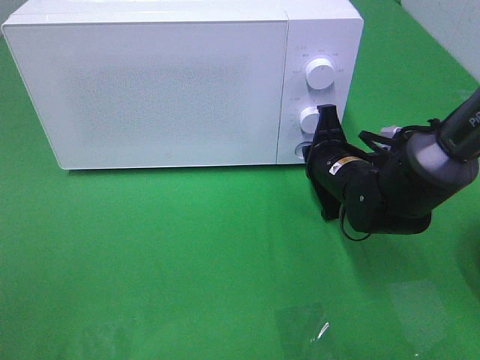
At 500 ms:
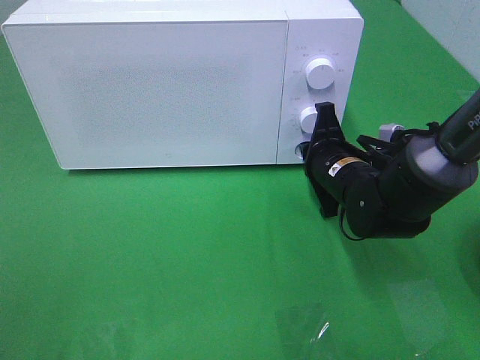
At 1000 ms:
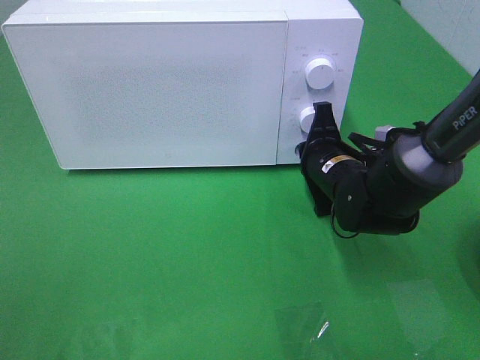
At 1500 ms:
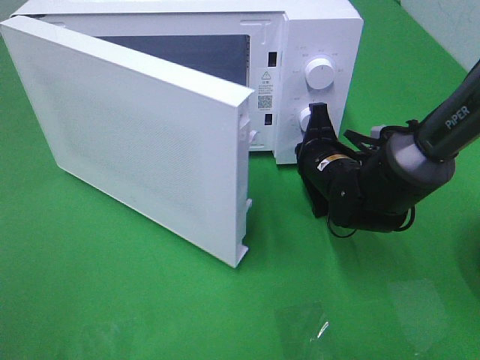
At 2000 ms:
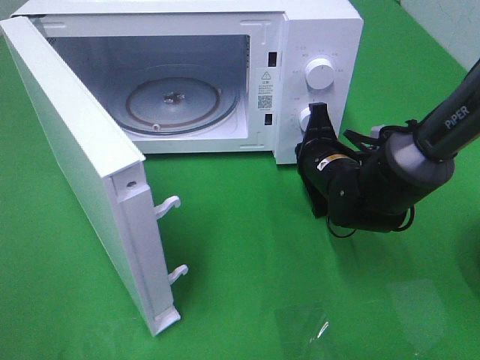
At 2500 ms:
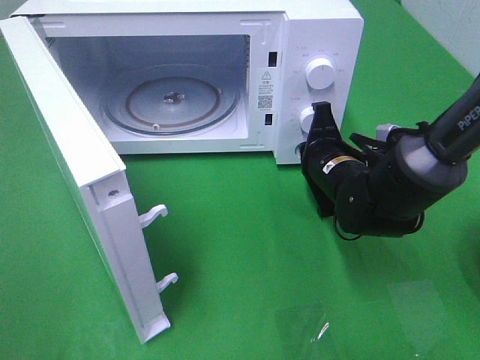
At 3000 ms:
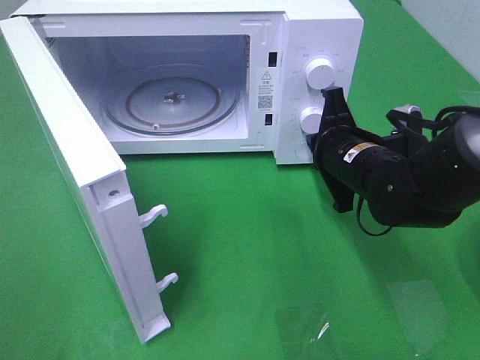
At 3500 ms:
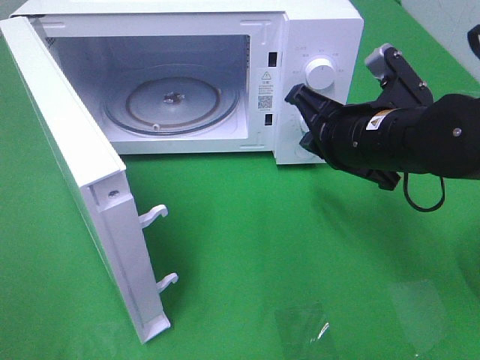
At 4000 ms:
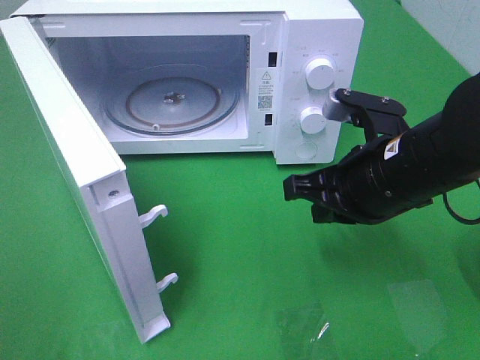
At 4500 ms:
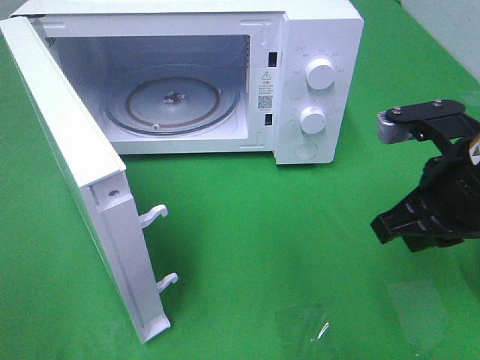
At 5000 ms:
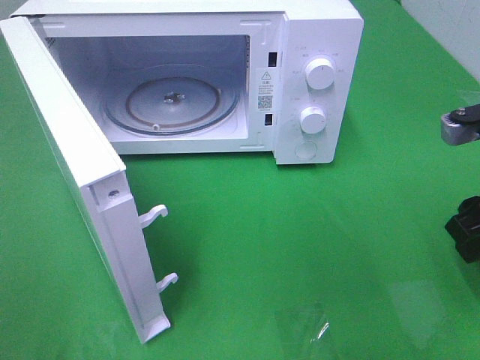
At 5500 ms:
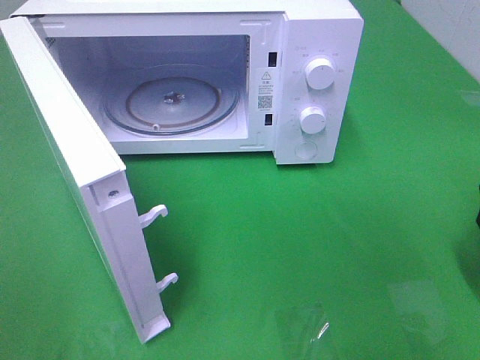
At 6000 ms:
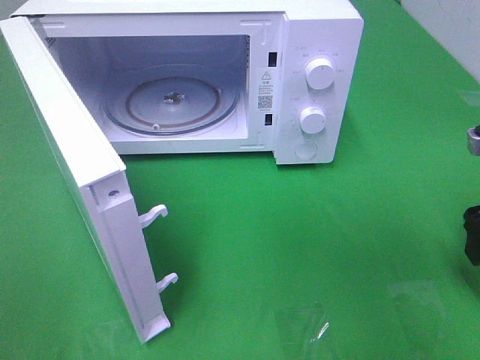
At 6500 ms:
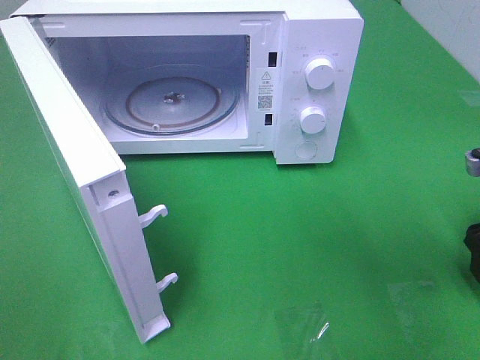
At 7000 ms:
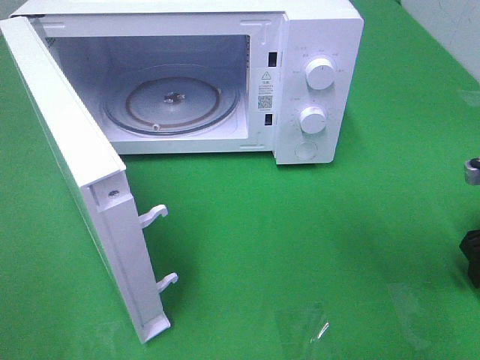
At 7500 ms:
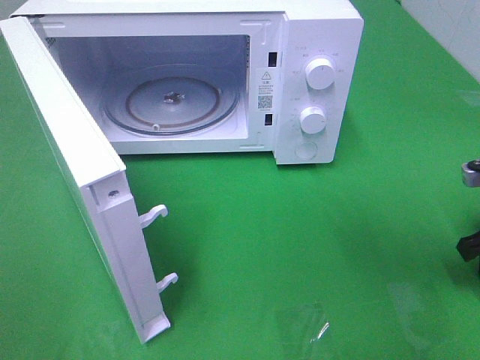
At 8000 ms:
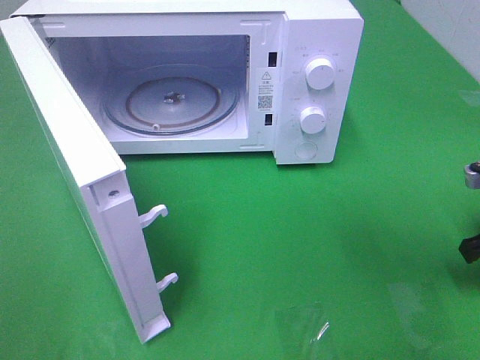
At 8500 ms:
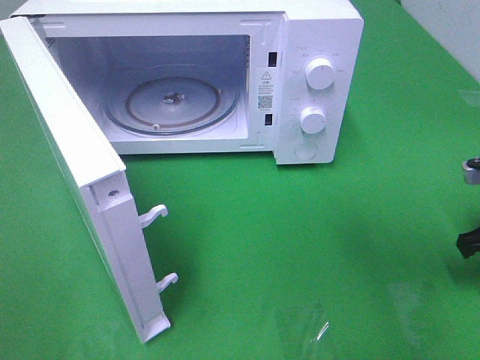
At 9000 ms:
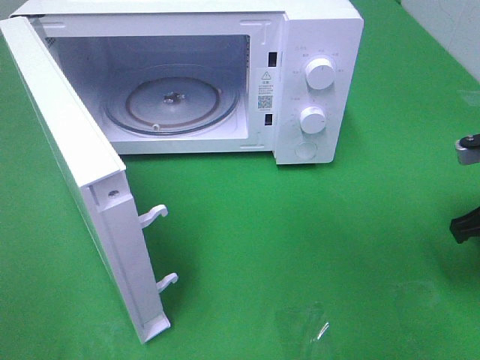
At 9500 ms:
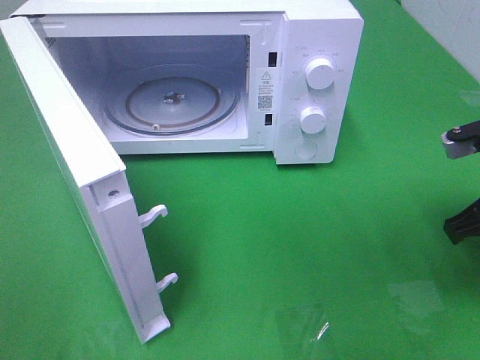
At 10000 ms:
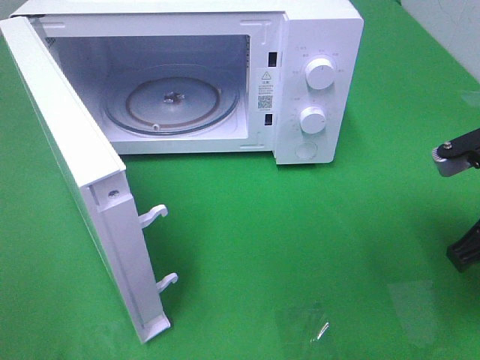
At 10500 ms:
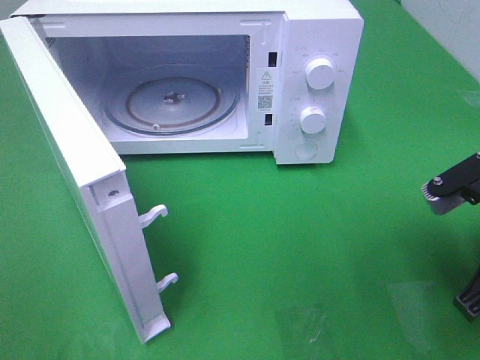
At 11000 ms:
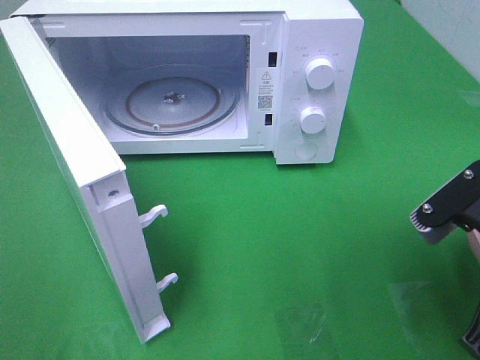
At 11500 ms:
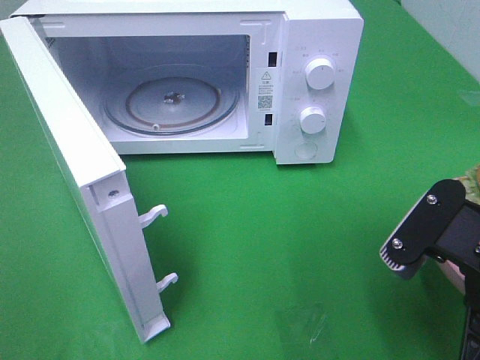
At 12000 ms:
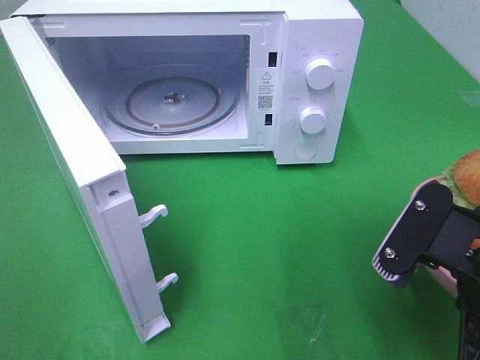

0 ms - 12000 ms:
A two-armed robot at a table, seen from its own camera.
Task of the whole recording: Heat the burger.
Step, 0 ms - 2500 ms: Right hand: press the switch.
Step, 3000 ms - 8000 ms: Right hand: grab the plate with the hamburger.
2000 ms - 4000 ms: The right gripper heads backward and upward, covering some 15 cm.
4000 ms - 6000 ms: The right gripper is displaced to the right by about 15 cm, and opens up.
8000 ms - 10000 ms: The right gripper shifts some 10 cm to the left and upward.
10000 ms - 12000 ms: The right gripper heads backward and to the left, covering about 10 cm.

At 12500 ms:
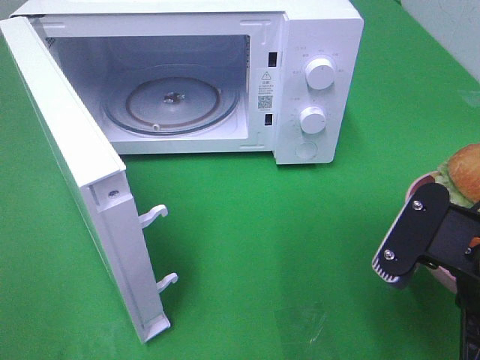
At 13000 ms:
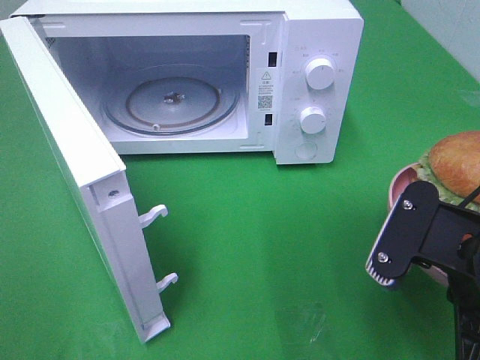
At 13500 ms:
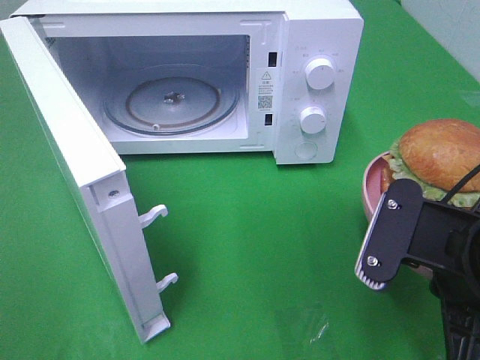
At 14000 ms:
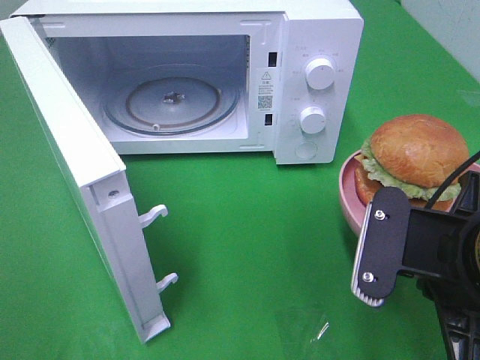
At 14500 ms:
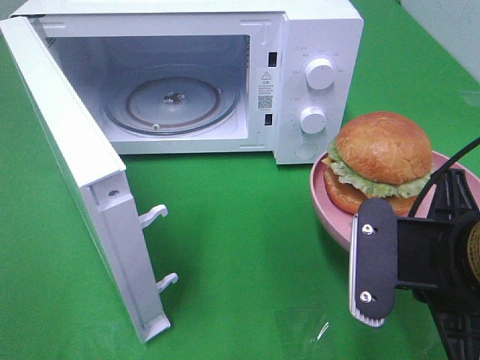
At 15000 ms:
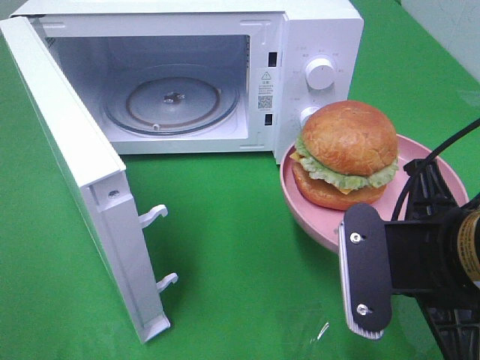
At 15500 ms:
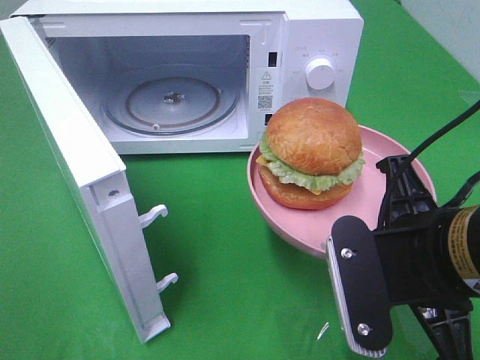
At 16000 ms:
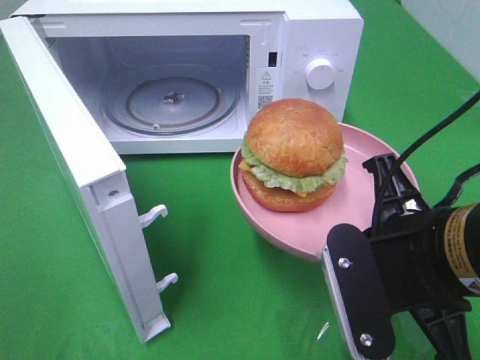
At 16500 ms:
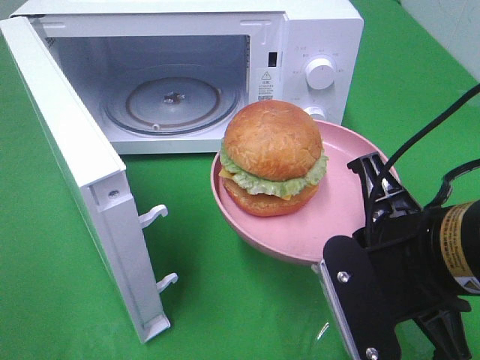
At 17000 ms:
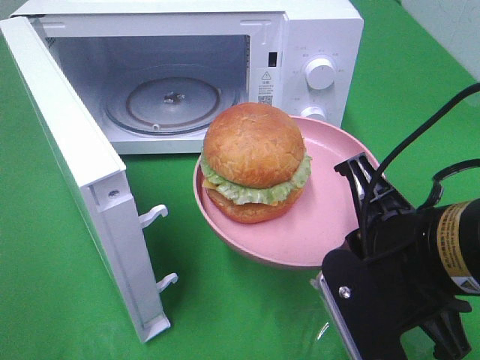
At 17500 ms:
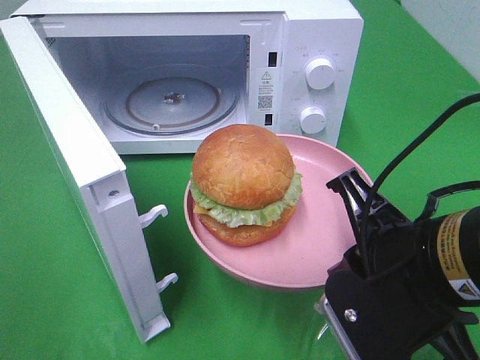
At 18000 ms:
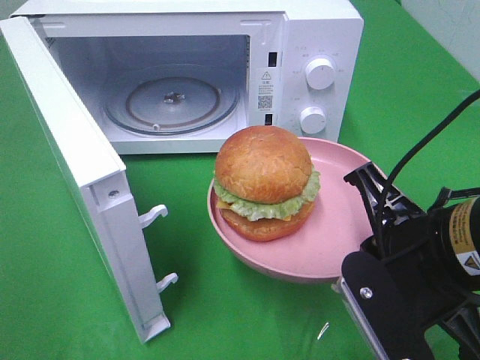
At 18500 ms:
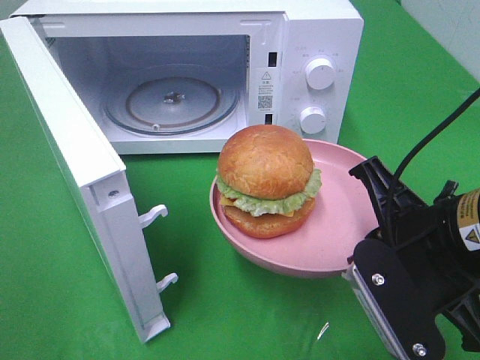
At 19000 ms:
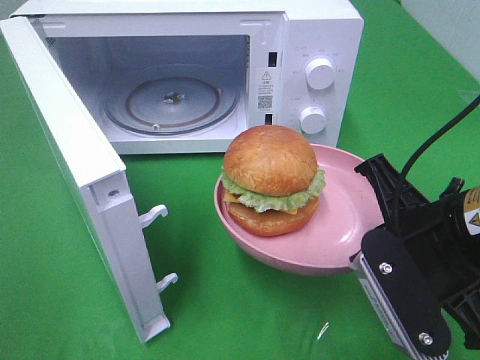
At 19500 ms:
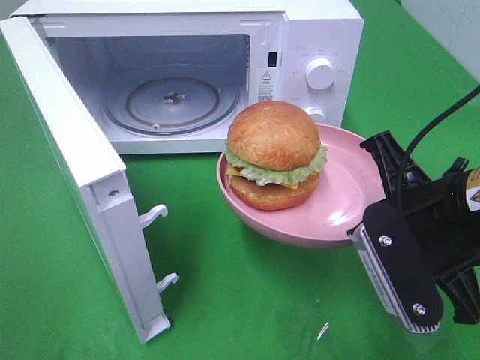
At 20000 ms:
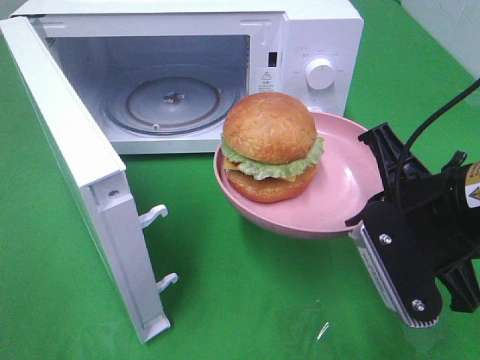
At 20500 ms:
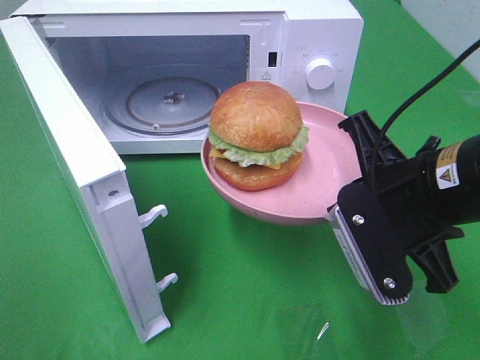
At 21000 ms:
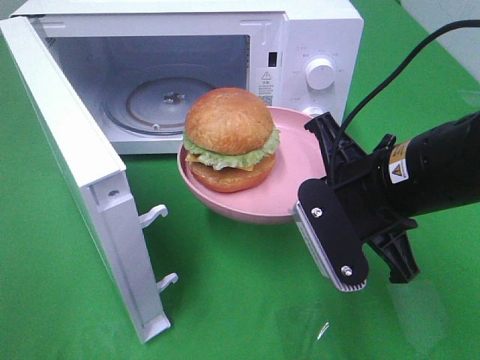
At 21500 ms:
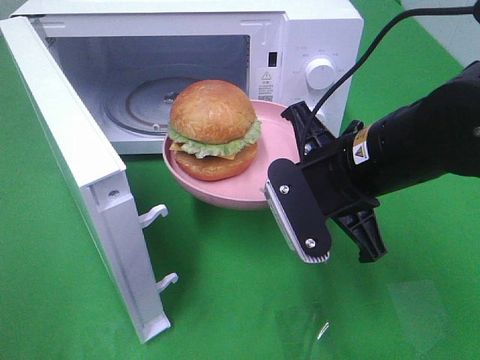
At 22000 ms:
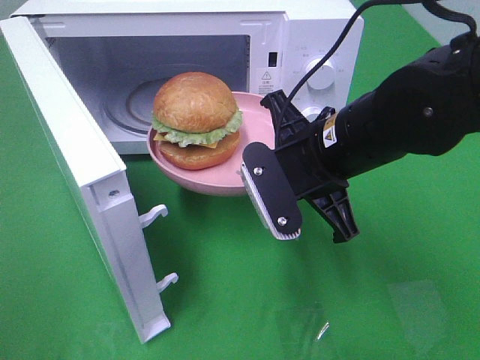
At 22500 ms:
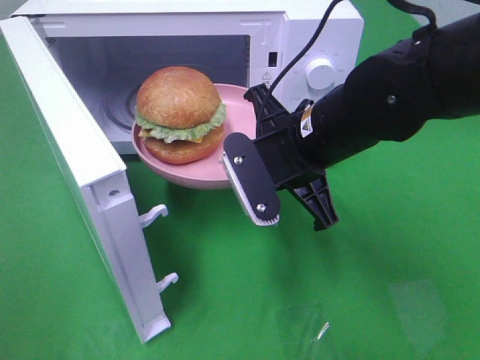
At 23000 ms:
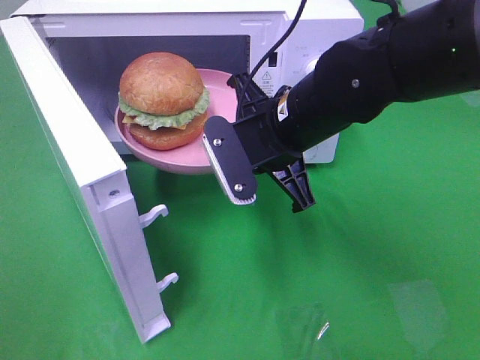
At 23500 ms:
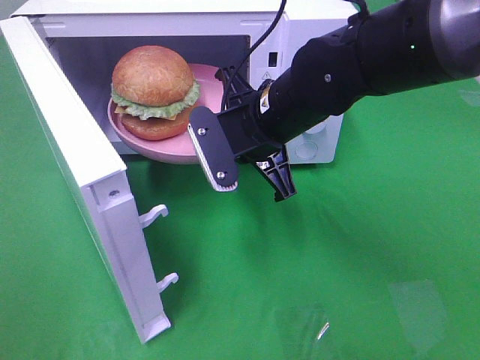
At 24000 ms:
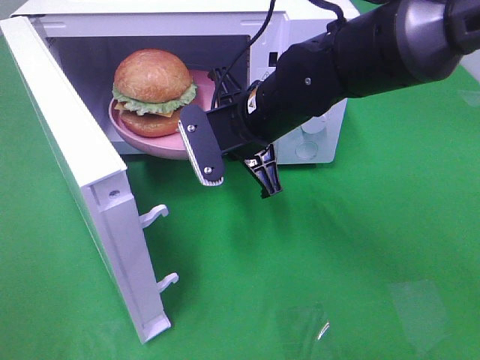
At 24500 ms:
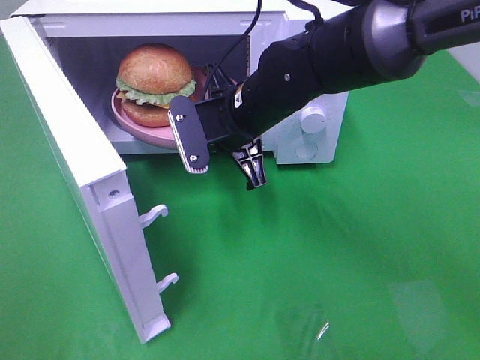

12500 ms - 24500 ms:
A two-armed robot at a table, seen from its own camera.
Task of the whole recording: Heat the burger.
16500 ms - 18500 ms: The grippers move only a little.
20500 ms - 22500 ms: The right gripper heads forward and to the left, covering roughly 10 cm.
22500 ms - 24500 ms: The right gripper shifts some 10 cm forward and to the left.

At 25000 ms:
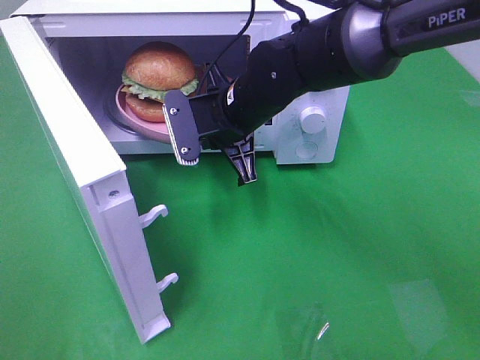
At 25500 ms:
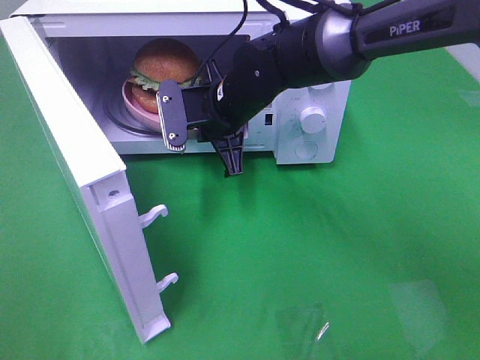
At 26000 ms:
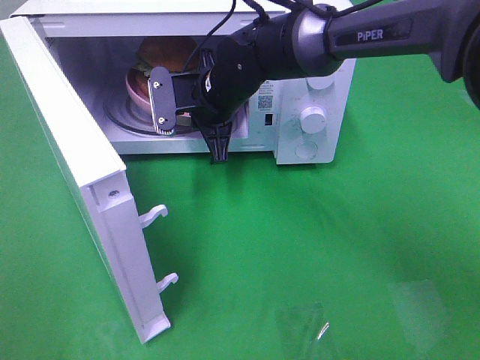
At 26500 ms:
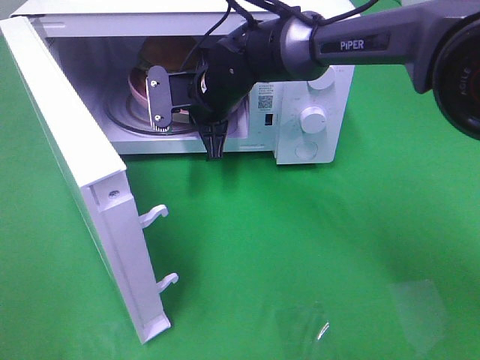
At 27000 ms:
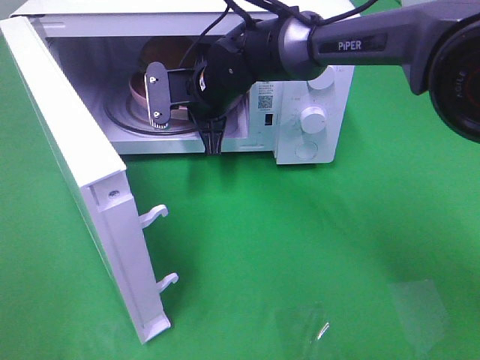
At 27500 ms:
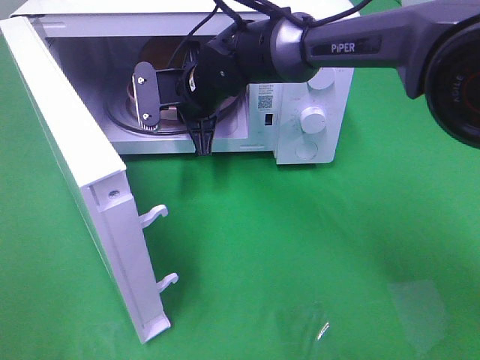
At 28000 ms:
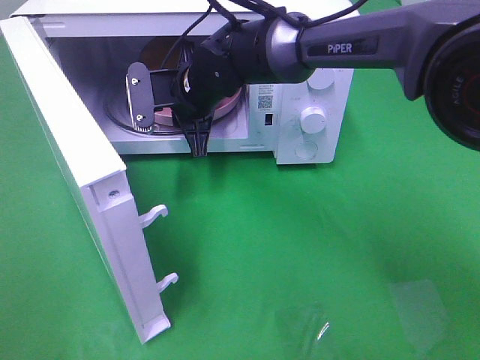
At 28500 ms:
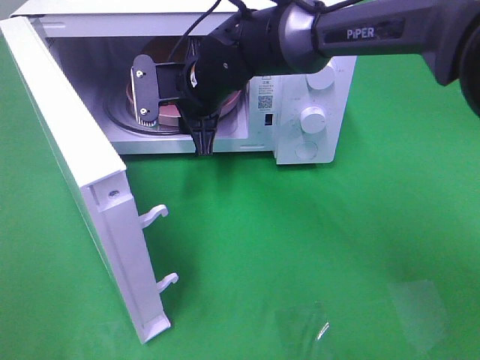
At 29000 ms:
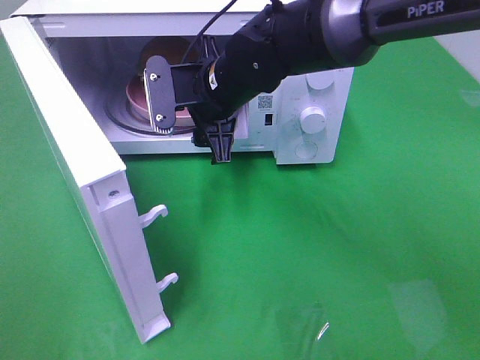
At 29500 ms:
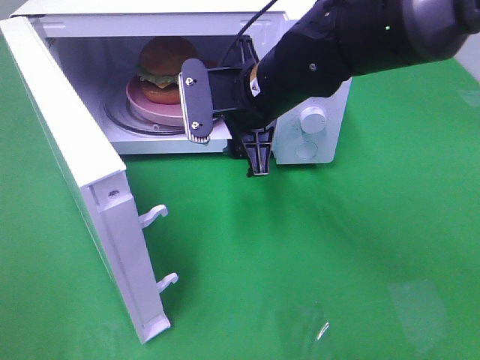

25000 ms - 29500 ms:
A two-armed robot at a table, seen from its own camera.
Task of the whole recording: Heat the burger.
Step, 25000 ms - 27500 ms: Right hand: place the plate in the microwave.
25000 ms - 27000 ms: The right gripper shifts about 5 cm forward.
27000 ms - 29500 ms: The right gripper shifts some 10 cm backward and to the right, and opens up.
